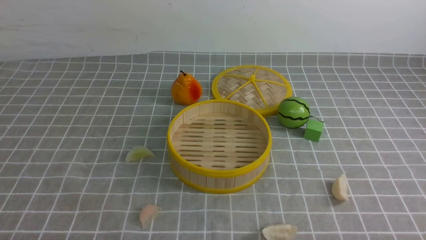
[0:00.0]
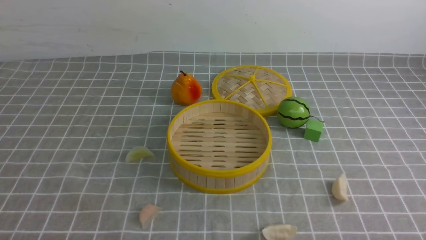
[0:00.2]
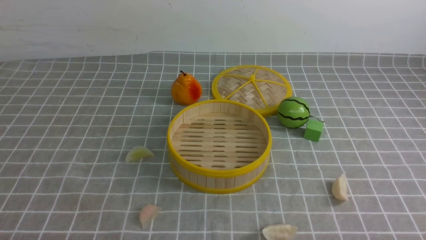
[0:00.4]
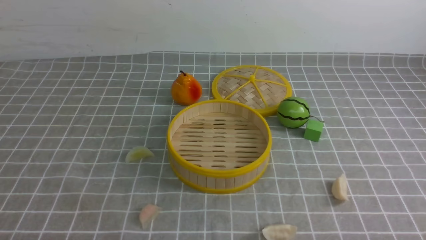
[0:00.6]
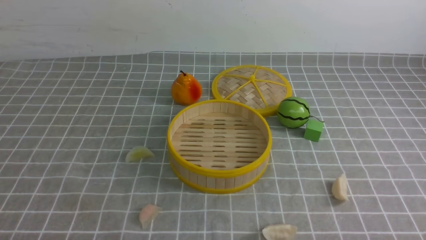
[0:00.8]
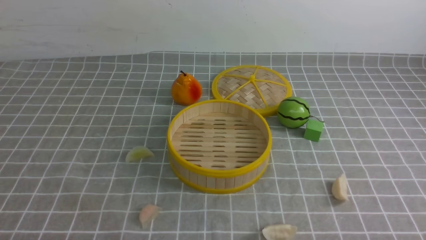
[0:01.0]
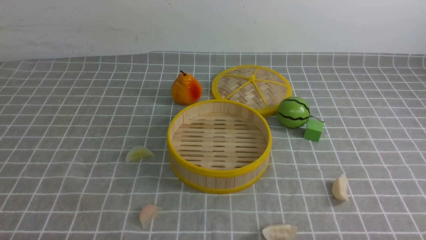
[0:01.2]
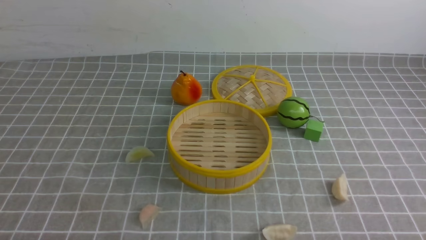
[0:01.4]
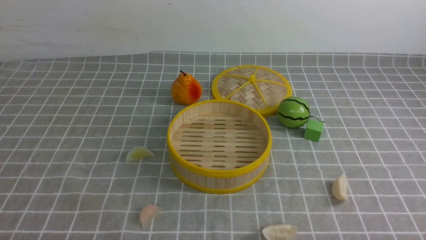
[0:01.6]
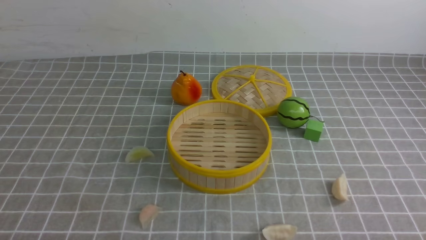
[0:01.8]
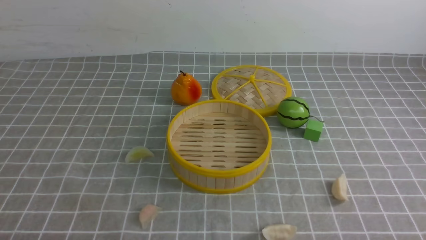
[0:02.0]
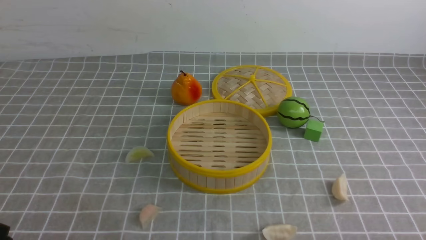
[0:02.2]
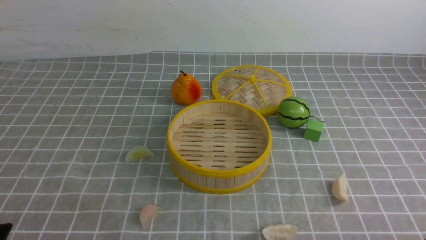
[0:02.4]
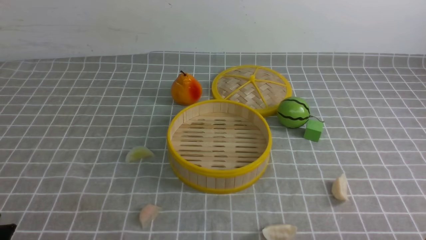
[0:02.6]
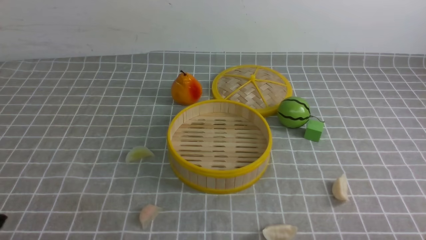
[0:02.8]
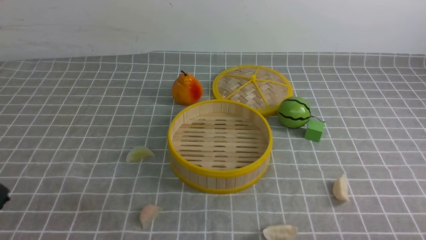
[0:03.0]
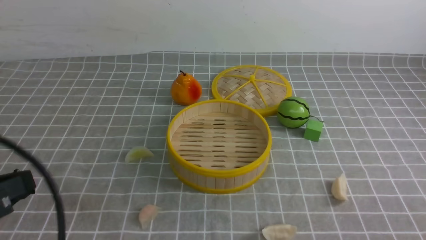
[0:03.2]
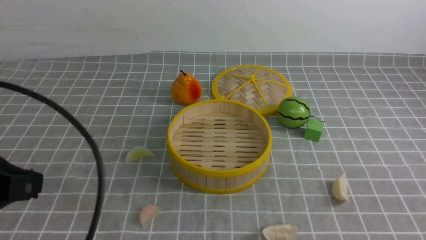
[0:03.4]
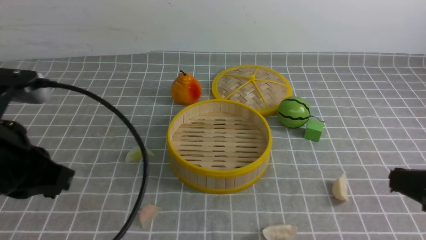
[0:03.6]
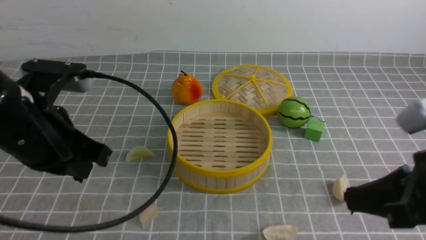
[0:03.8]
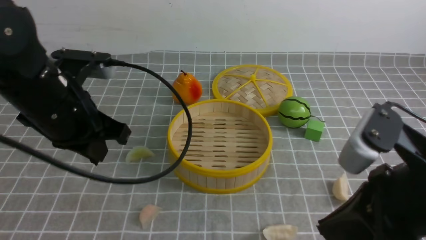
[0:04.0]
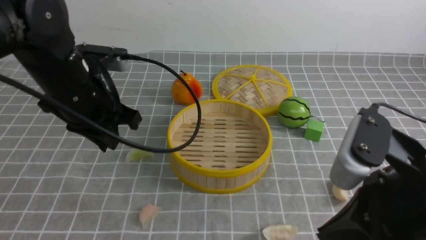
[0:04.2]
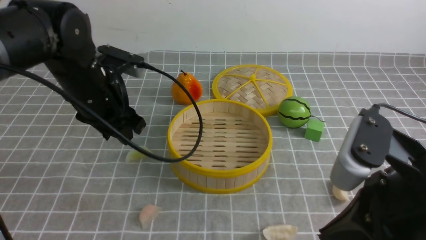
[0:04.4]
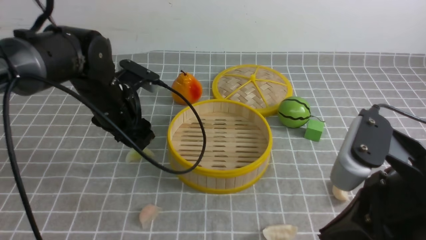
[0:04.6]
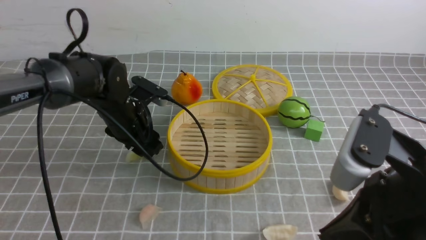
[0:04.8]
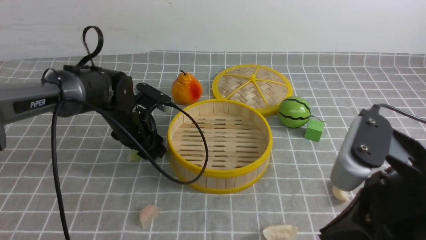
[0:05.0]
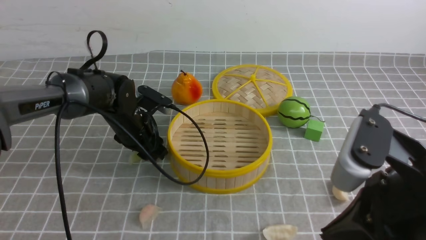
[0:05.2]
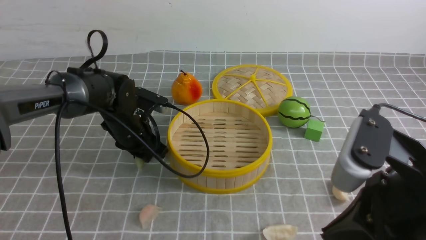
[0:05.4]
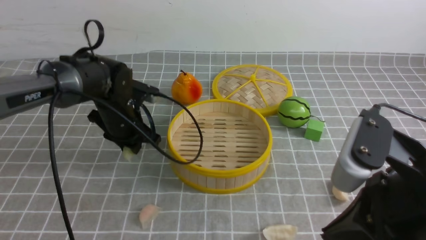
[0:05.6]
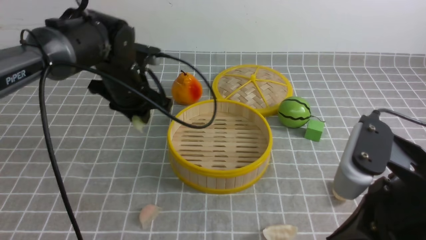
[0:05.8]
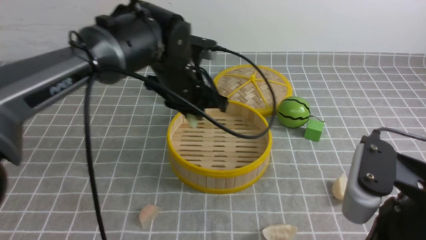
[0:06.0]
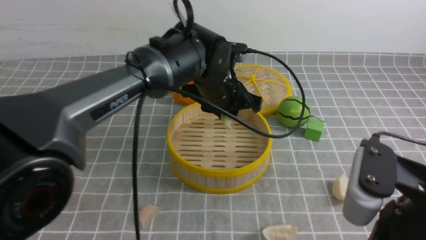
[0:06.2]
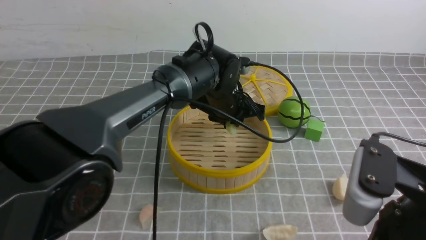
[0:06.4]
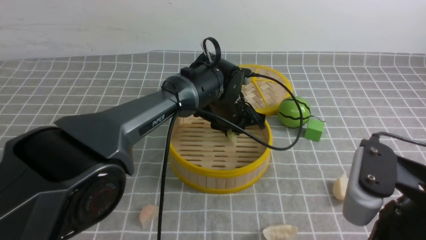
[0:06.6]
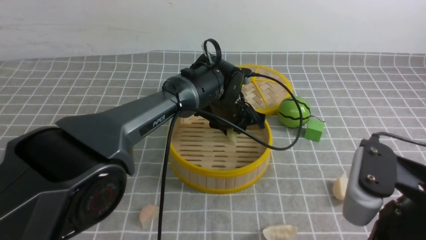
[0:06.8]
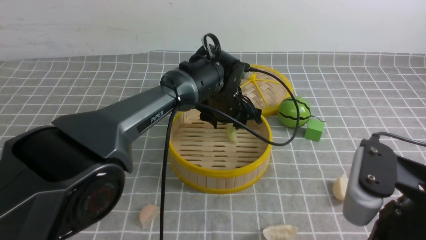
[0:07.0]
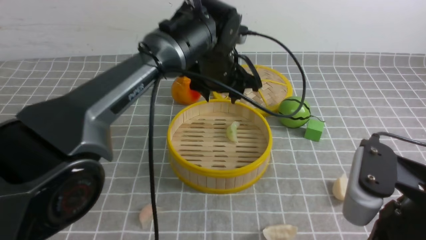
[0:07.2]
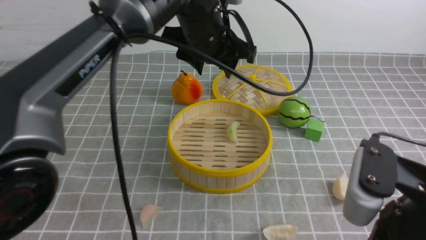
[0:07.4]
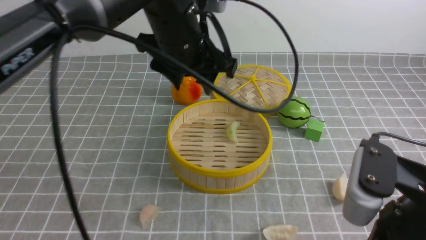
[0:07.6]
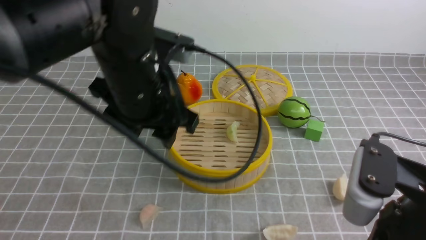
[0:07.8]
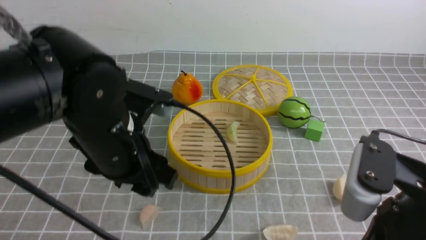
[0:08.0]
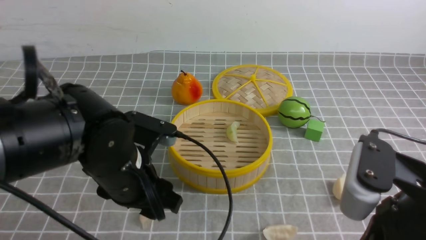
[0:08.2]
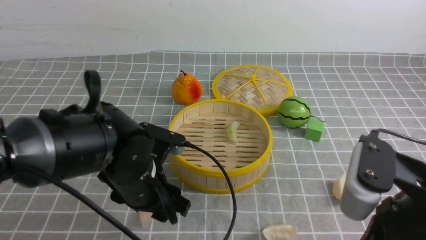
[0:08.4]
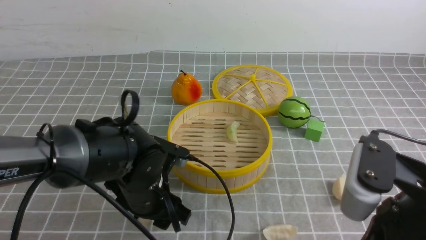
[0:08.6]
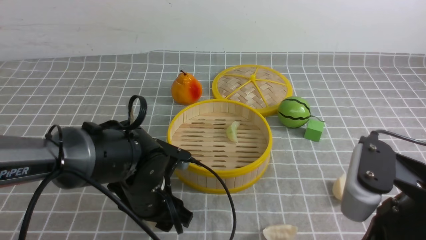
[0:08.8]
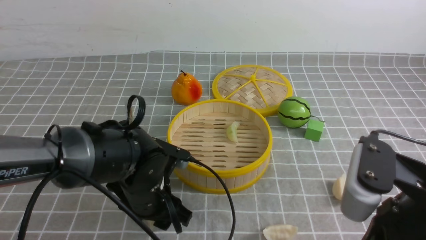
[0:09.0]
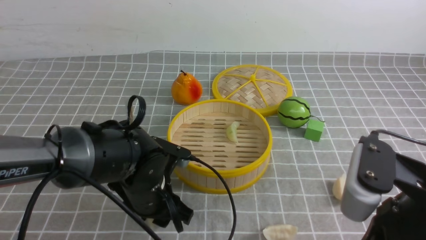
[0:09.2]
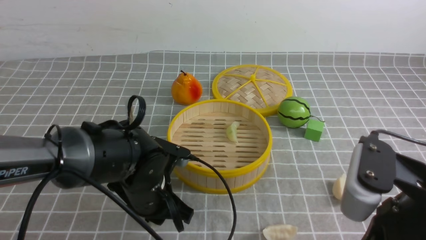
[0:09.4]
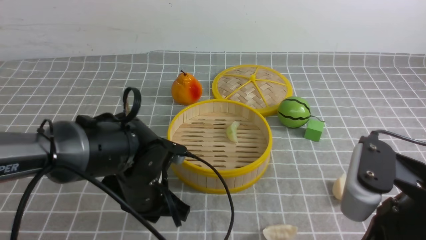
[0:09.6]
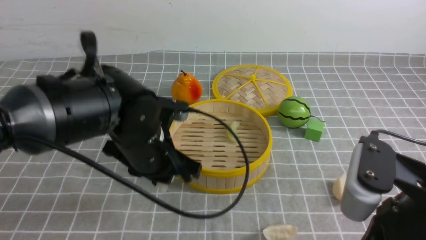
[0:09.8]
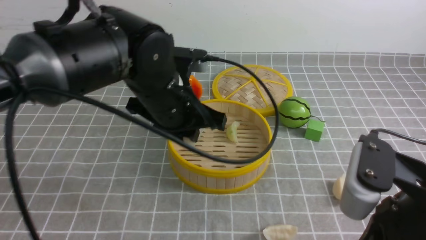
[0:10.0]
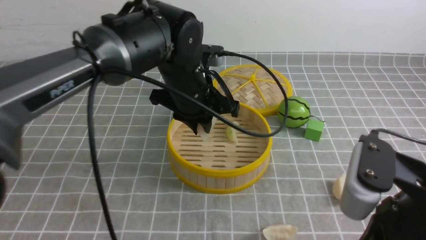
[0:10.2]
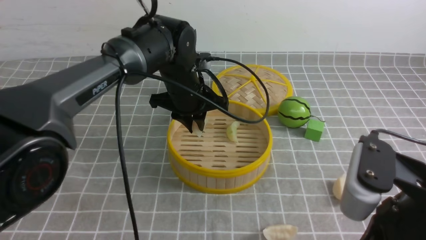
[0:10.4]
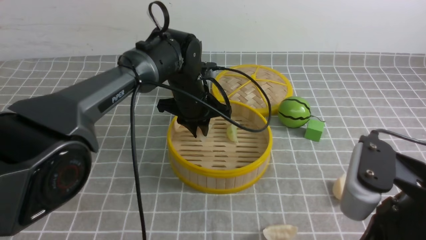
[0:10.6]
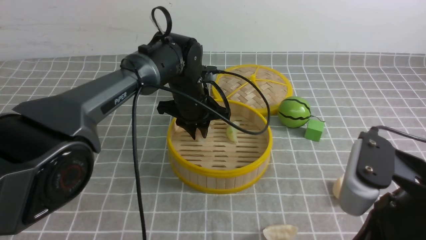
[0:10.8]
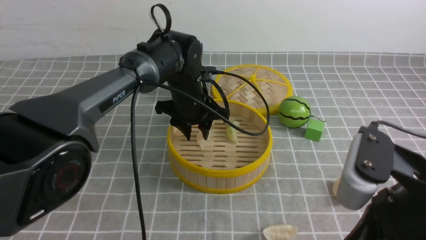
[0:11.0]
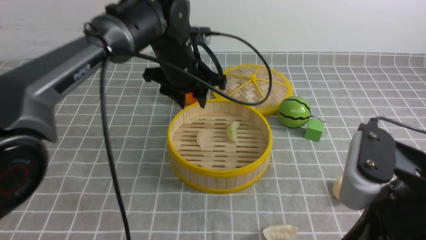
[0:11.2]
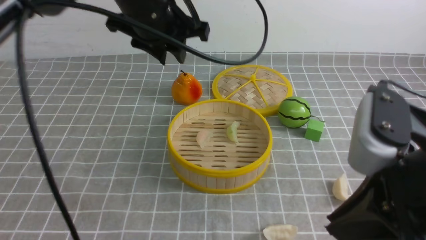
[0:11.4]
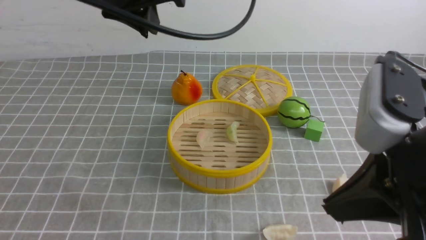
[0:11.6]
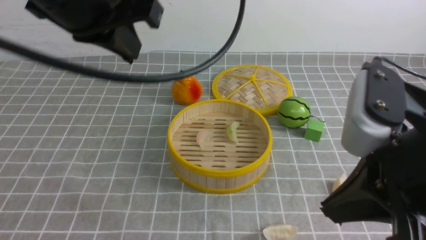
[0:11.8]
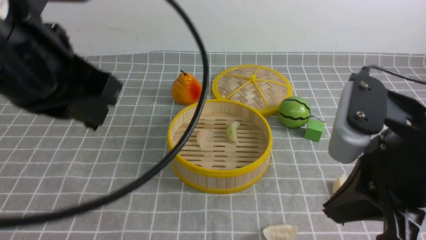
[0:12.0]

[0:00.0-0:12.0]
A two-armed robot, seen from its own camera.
Task of the whole recording: put the dumplings into the steamer on the table with the grey tablecloth.
Step, 0:00.0 to 0:05.2: use the left arm to grab a dumpling.
Step, 0:05.4 to 0:07.0: use the left arm to put the dumpling into the steamer.
Step, 0:07.2 to 0:09.6: use the left arm to grab a dumpling.
Step, 0:09.8 to 0:11.0: use the left arm to put the dumpling into the steamer.
0:00.0 to 0:01.6: Both grippers stay about where they are.
0:03.0 to 0:04.4: The right gripper is displaced to the left, upward and forward by approximately 20 cm; the left gripper goes roughly 30 cm forward, and opens up.
0:04.4 to 0:06.0: The left gripper goes about 15 cm to the right and forward.
0:06.0 to 0:07.6: The left gripper travels upward and backward by roughly 10 cm, and opens up.
0:07.6 to 0:09.0: The left gripper shifts some 20 cm downward.
0:09.0 to 0:10.4: The left gripper travels forward and upward by about 15 cm, and closes its fingers.
0:10.4 to 0:12.0: The right gripper changes place by about 5 cm; the left gripper heads backward, upward and to the left, covering about 30 cm, and closes its fingers.

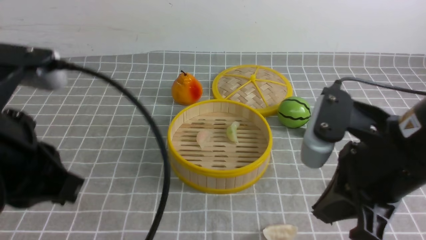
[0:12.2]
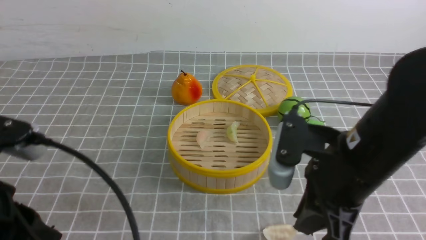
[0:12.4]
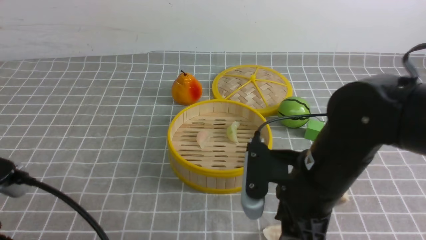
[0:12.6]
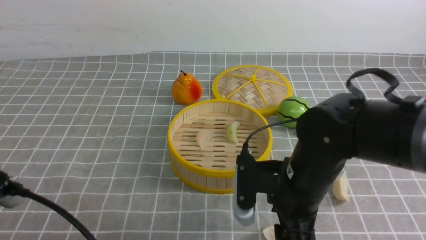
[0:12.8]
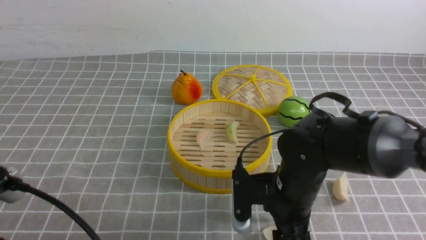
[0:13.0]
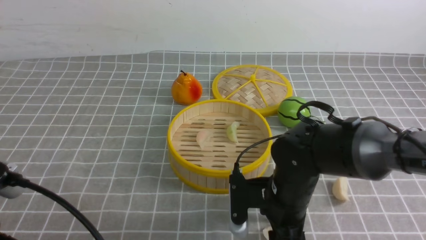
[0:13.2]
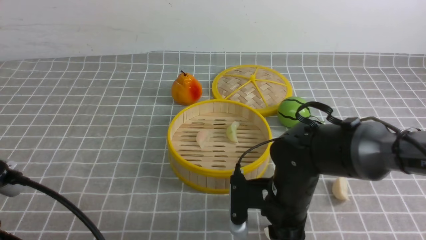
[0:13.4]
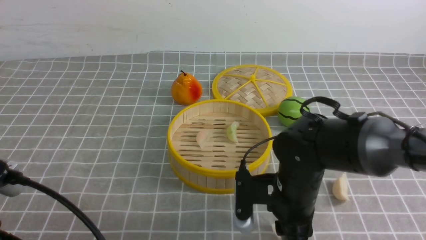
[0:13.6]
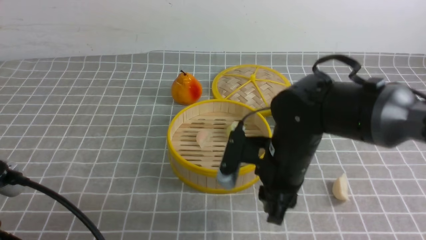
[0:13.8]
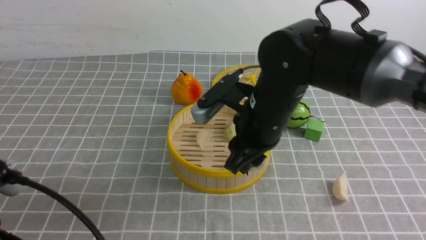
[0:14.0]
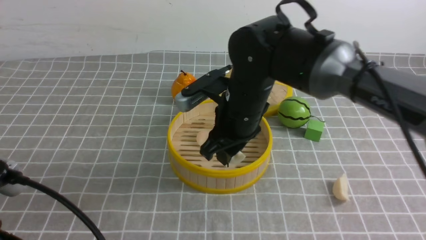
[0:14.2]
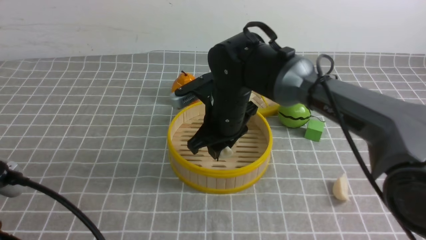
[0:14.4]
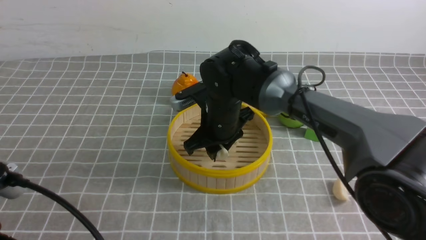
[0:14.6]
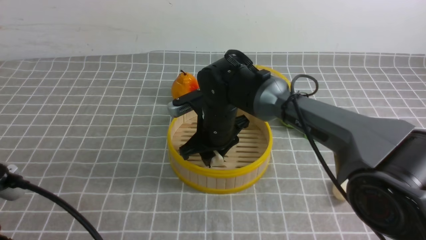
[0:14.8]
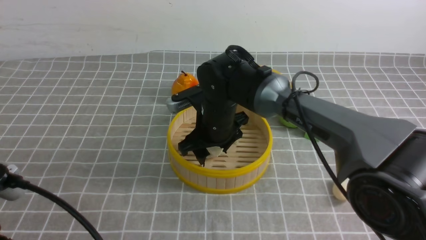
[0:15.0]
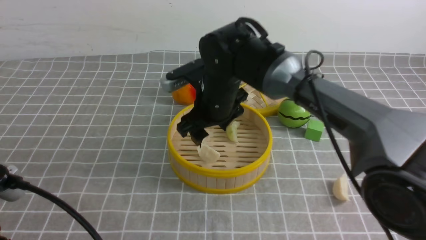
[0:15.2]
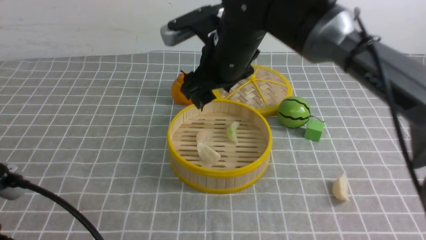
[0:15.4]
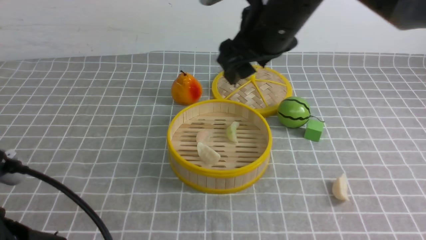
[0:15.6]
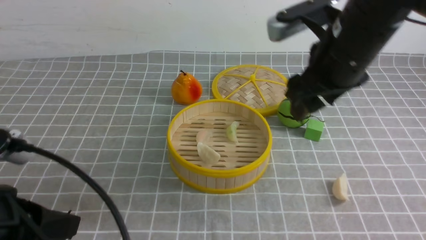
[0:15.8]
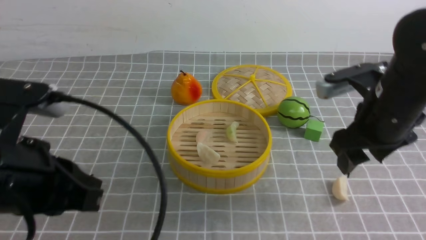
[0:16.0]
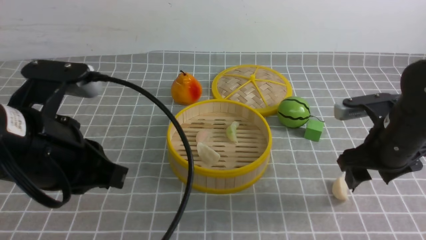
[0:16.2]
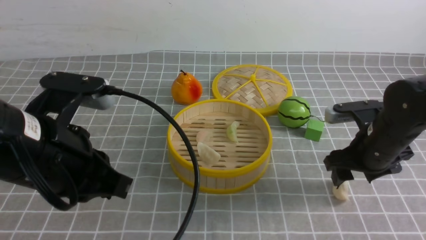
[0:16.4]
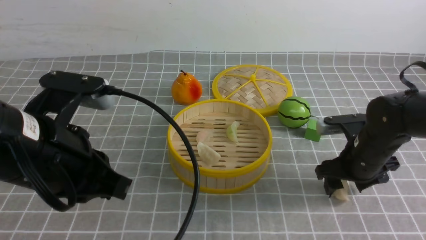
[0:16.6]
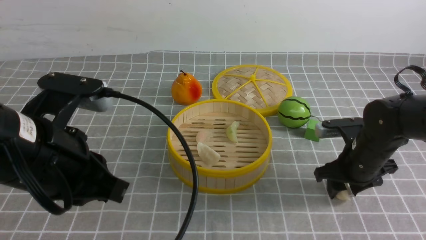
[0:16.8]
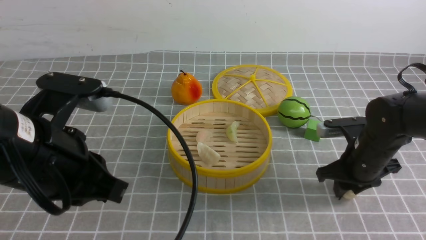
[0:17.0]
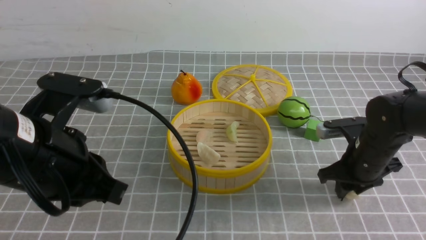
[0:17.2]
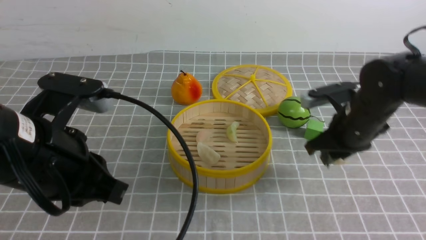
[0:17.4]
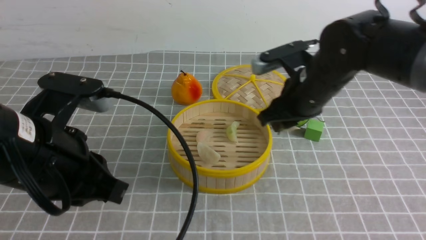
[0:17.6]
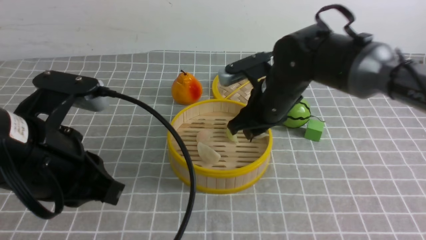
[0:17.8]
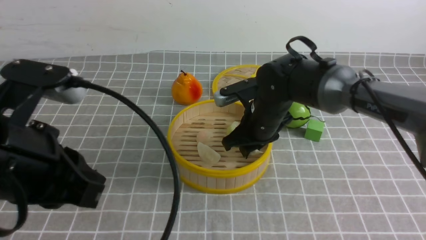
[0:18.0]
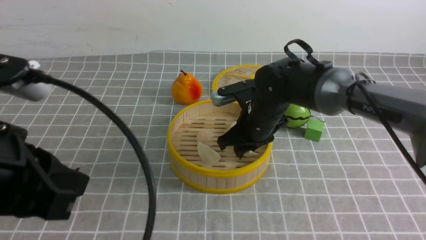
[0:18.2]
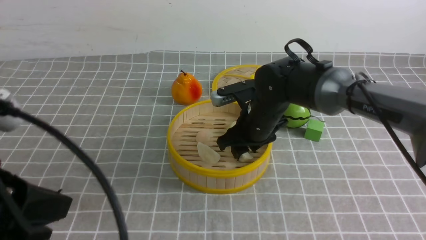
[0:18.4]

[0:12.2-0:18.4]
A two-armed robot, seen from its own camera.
Task of the whole recording: put the dumplings into the steamer on the table with the grey tablecloth.
Step, 0:12.2 to 0:13.6: use the right arm to grab a dumpling.
Step, 0:14.0 to 0:15.2: use the right arm to put the dumpling into the steamer.
Step, 0:15.4 to 0:17.2: use the right arm to grab a dumpling.
0:12.2 to 0:13.8: The left gripper travels downward and backward by roughly 10 cm. Meanwhile the right gripper shifts approximately 15 cm forward, downward and to the left, and opens its fingers.
0:13.8 to 0:15.4: The right gripper goes some 15 cm upward and forward, and opens its fingers.
0:15.4 to 0:16.8: The left gripper travels forward by roughly 10 cm. Meanwhile the right gripper is displaced to the right and downward by approximately 25 cm.
0:16.8 to 0:18.4: The right gripper heads to the left, covering some 15 cm, while the left gripper heads backward, covering roughly 10 cm.
